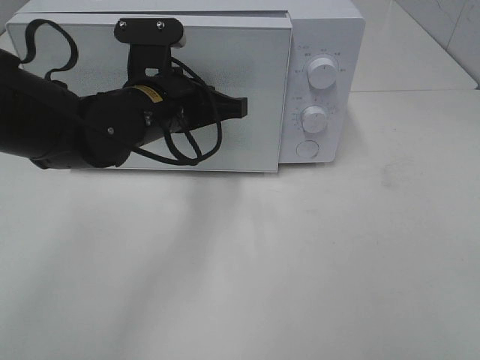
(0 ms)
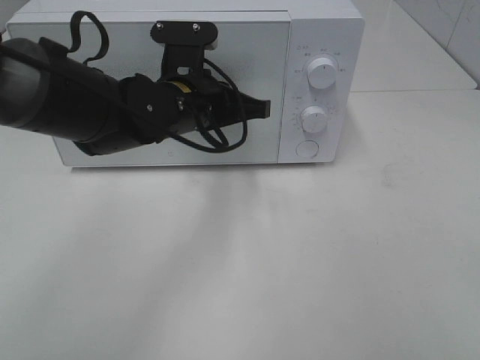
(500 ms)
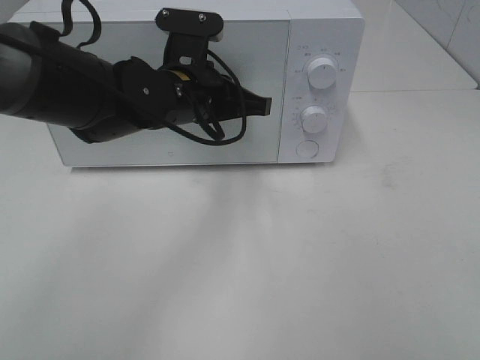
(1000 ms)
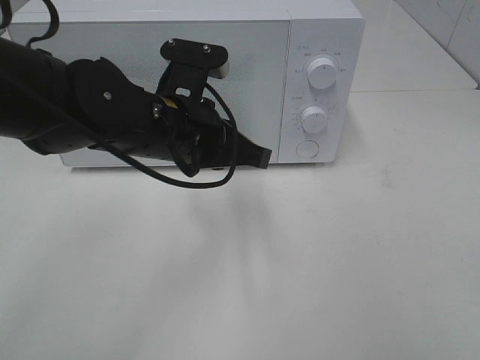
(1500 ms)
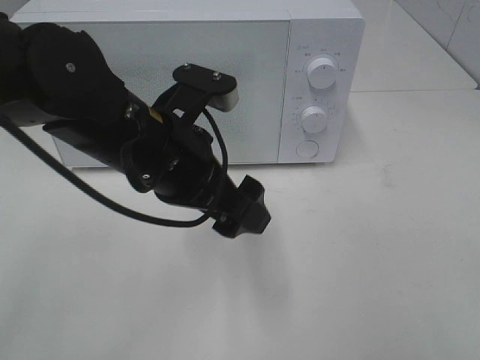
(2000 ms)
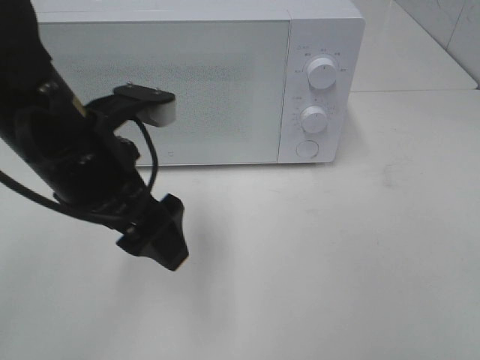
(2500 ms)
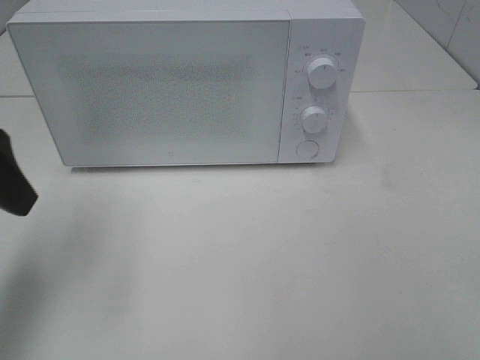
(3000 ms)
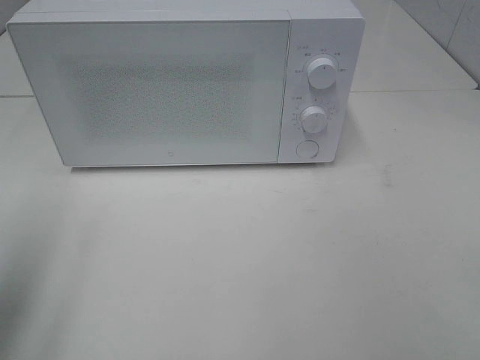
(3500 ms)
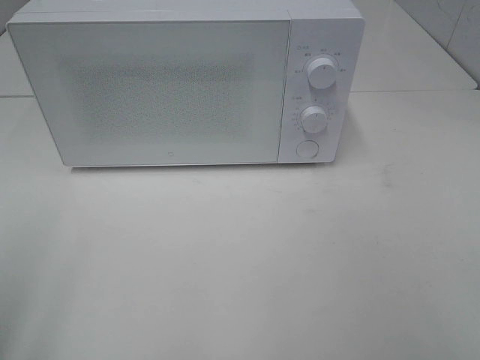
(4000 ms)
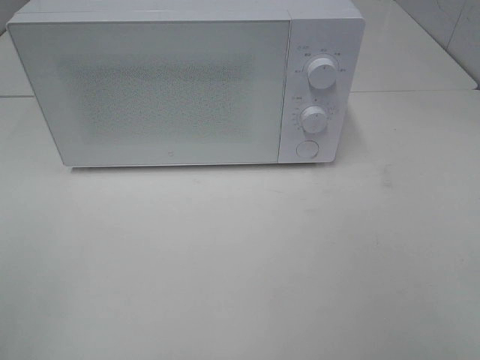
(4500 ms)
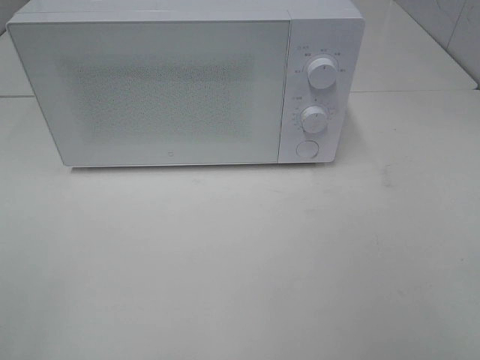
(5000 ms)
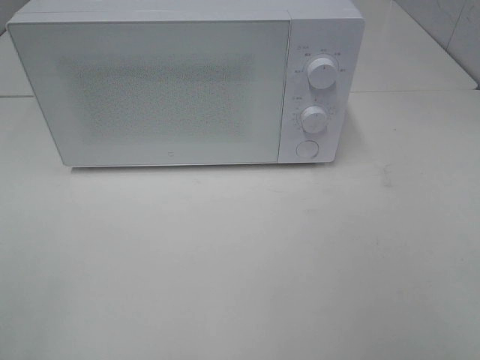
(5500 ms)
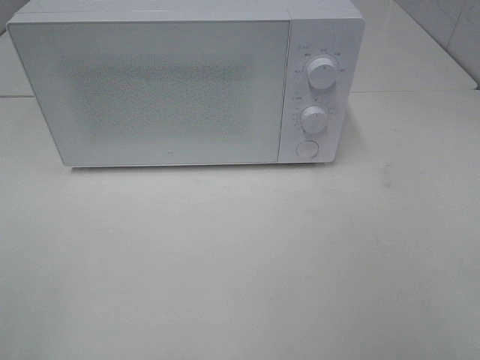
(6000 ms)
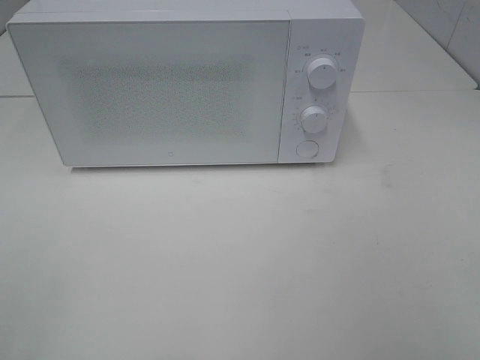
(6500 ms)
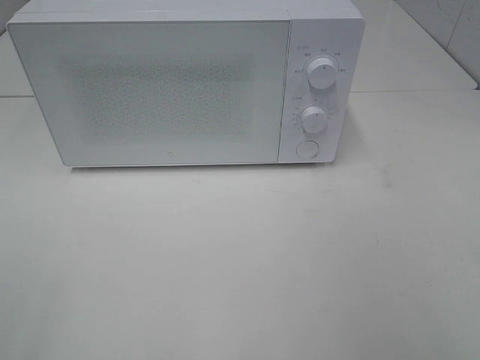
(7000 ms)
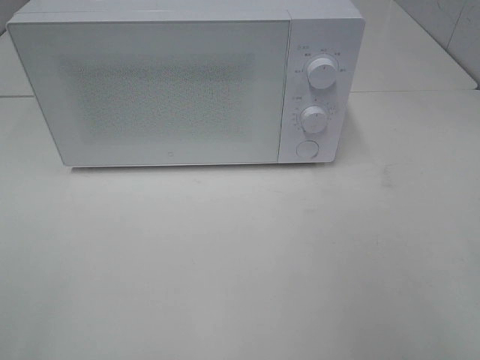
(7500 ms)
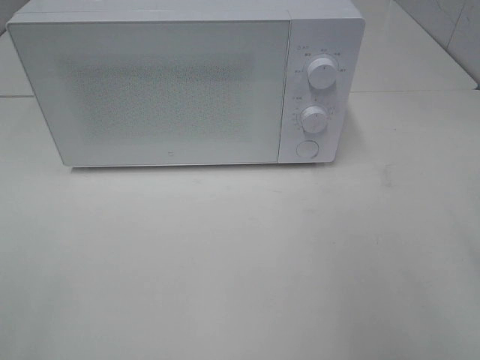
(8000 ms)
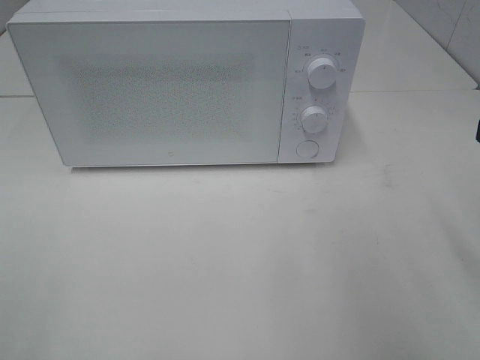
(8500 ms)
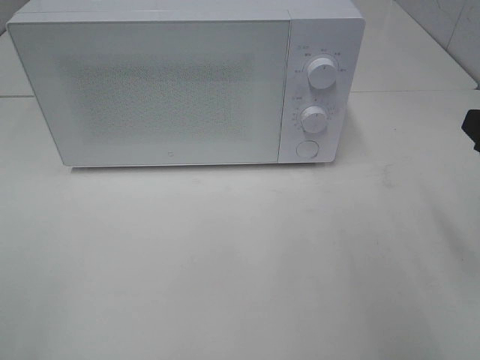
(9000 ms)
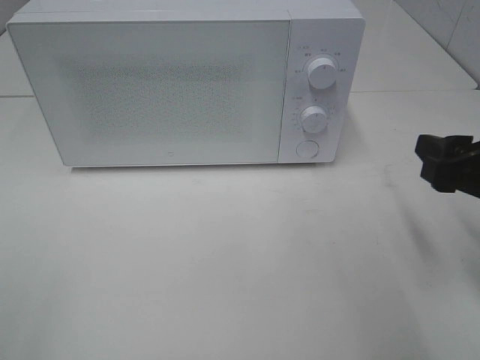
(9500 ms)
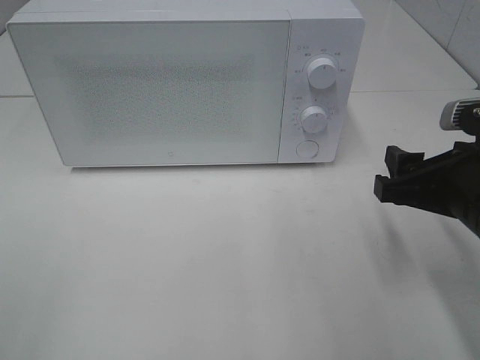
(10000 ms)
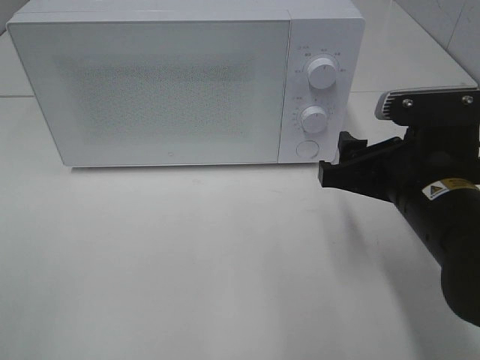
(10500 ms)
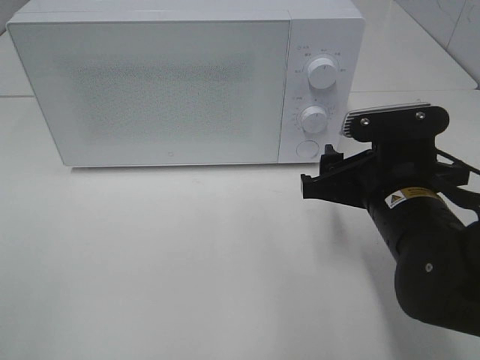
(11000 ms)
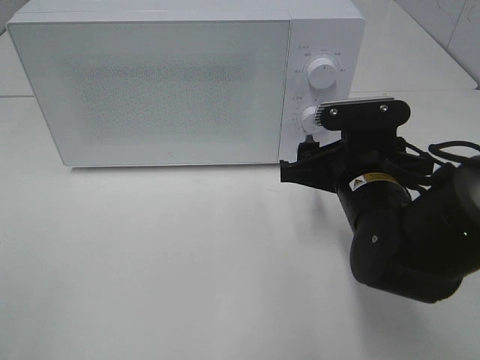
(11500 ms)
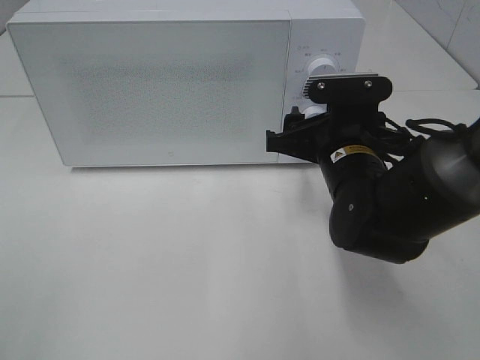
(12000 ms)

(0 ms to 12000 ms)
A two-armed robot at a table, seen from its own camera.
Task of the whole recording: Heat the burger.
0 ms - 2000 ms: The left gripper is displaced backward by some 10 cm, and opens up.
2000 ms - 4000 ms: The left gripper travels to the left and backward by roughly 30 cm.
8000 ms - 10000 ms: The right gripper goes roughly 15 cm downward, forward and to the left.
10000 ms - 12000 ms: The right gripper is displaced forward and to the left by about 15 cm.

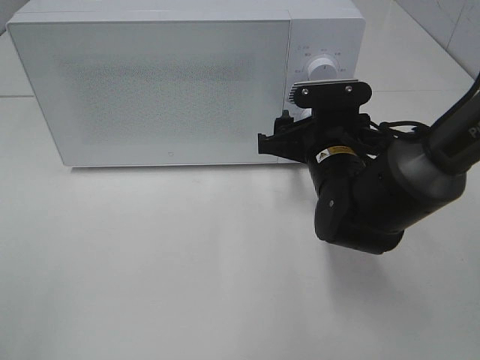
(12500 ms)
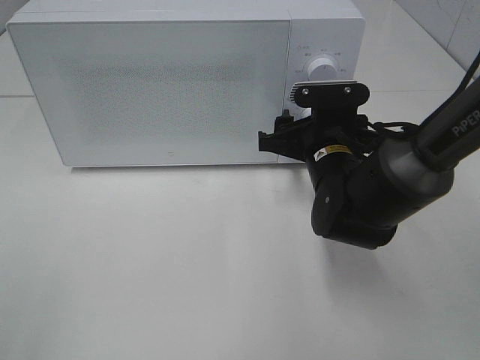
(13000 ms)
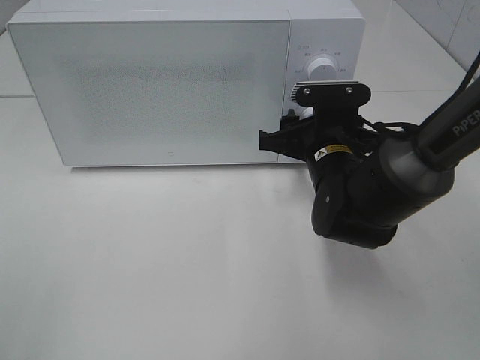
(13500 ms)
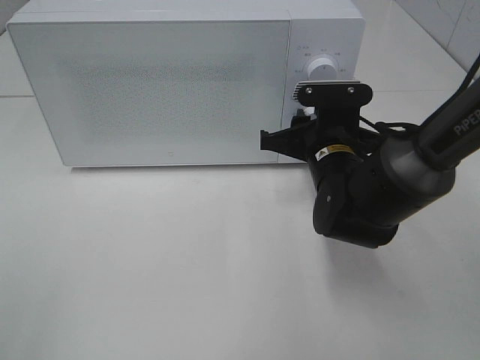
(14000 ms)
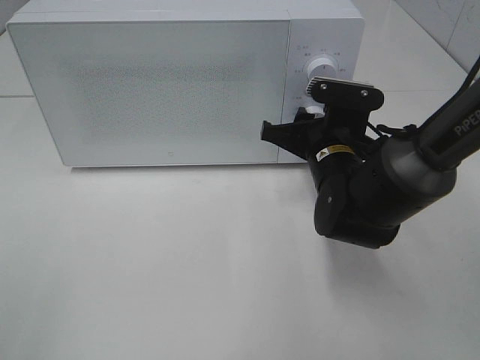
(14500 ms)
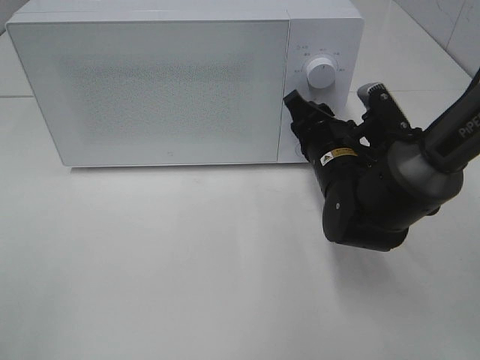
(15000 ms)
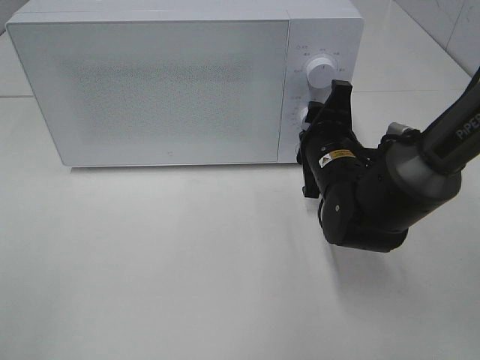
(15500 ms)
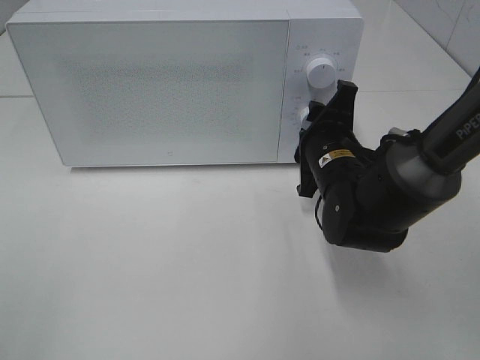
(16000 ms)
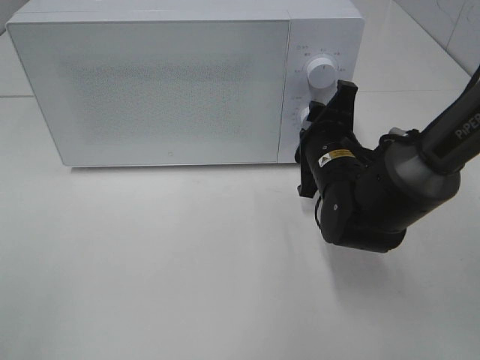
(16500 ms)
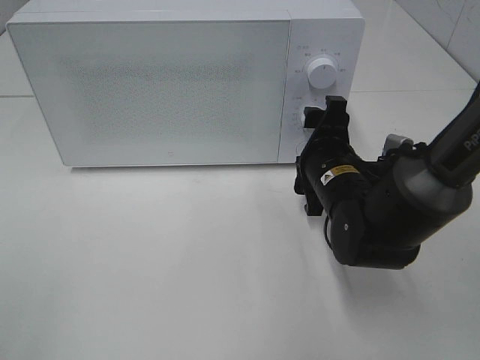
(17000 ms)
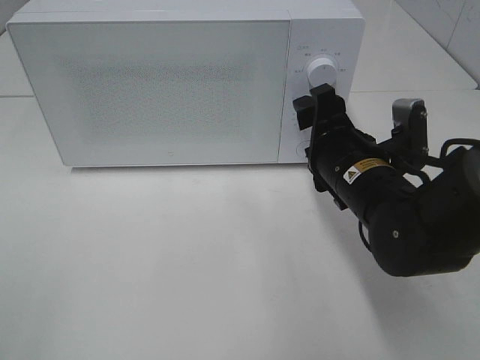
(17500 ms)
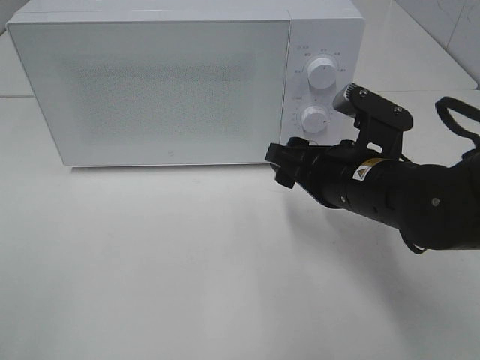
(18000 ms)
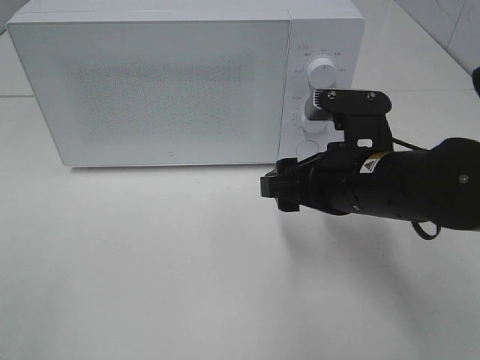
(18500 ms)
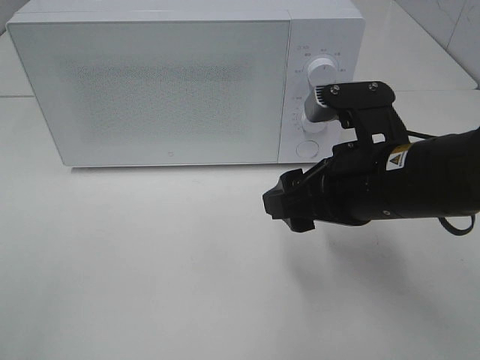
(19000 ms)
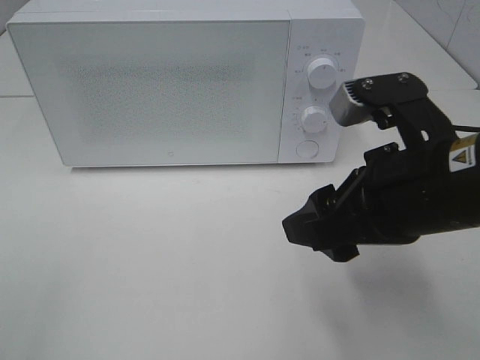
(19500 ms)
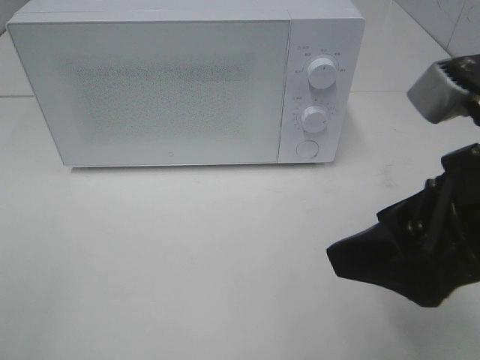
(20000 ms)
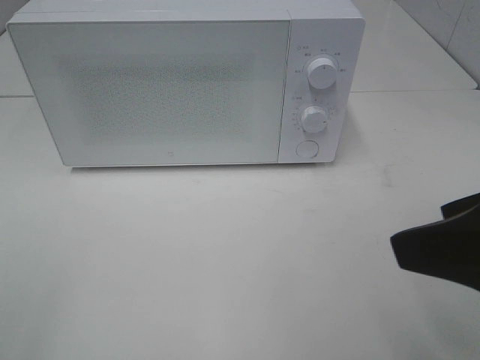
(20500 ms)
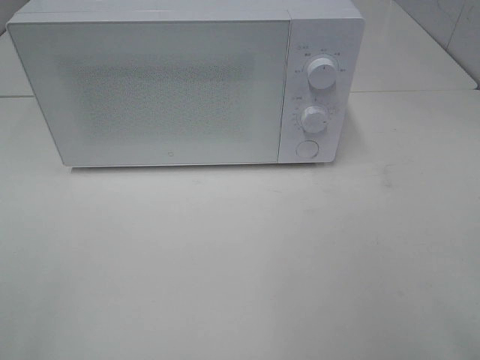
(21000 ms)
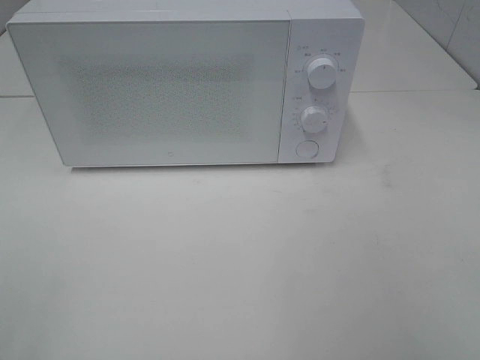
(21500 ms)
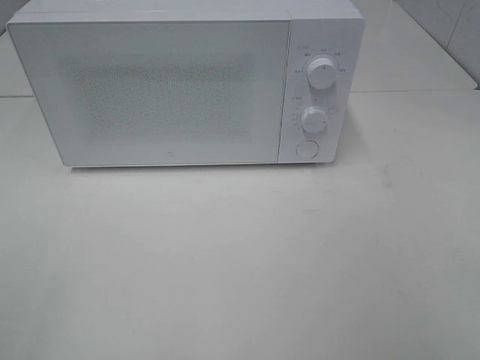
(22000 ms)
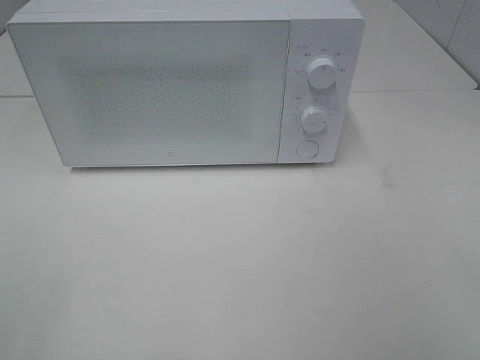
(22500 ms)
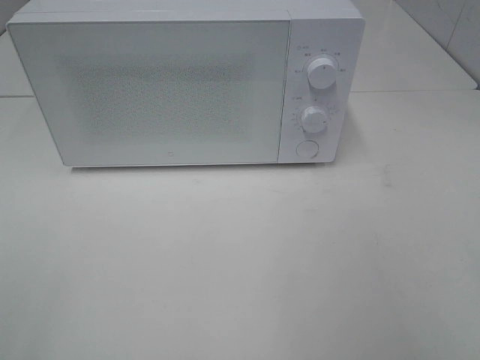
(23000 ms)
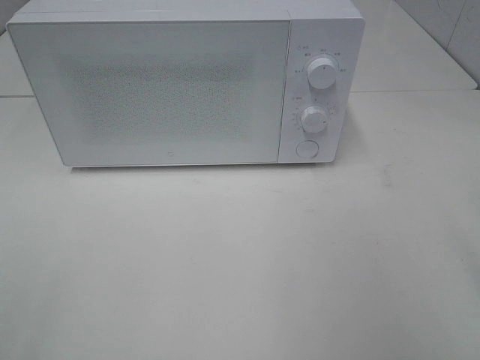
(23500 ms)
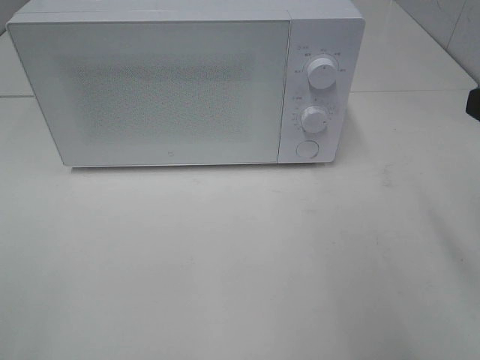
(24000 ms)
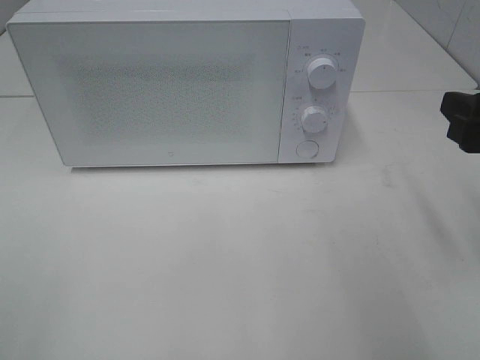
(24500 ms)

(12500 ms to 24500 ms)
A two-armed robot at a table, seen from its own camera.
Task of the whole recording: Heat the burger.
Step, 12500 ms - 16500 ms: Right hand: twist timer button.
12500 ms - 14500 ms: The right gripper closes its fingers.
16500 ms - 18500 ms: The right gripper shifts approximately 10 cm backward and upward.
18500 ms - 20500 ms: The right gripper goes about 20 cm backward, upward and to the right.
20500 ms - 22500 ms: The right gripper is displaced backward and to the right by about 10 cm.
22500 ms - 24500 ms: The right gripper moves forward, roughly 20 cm.

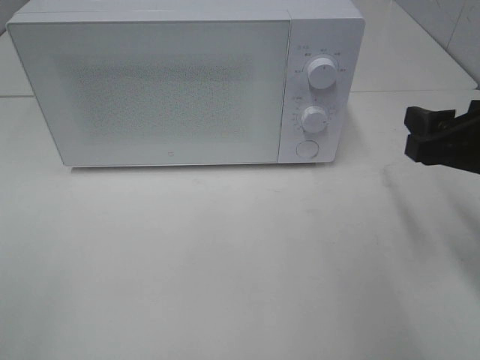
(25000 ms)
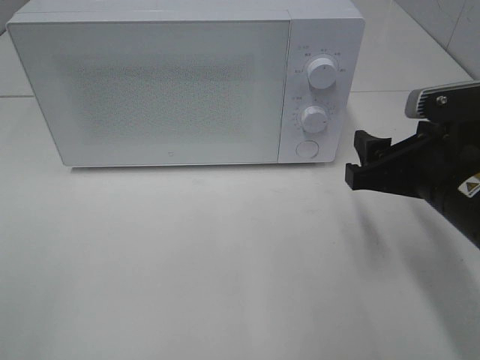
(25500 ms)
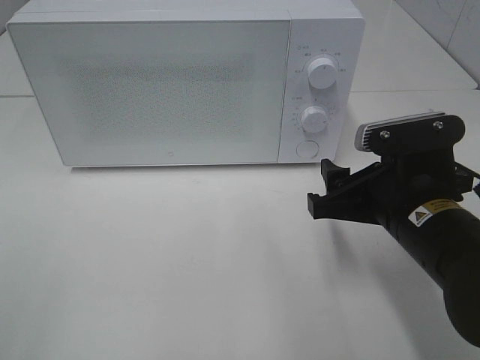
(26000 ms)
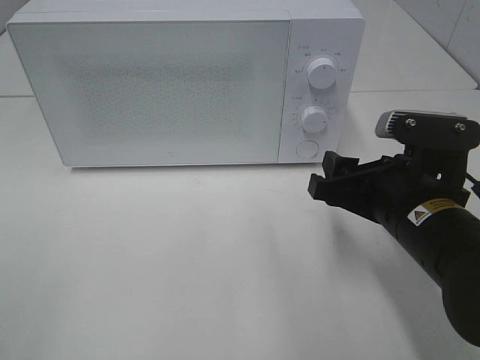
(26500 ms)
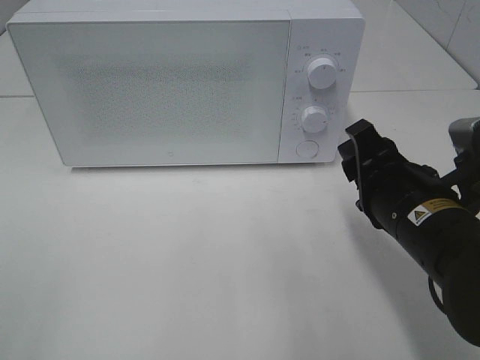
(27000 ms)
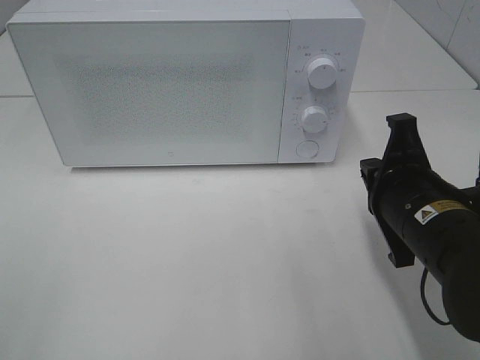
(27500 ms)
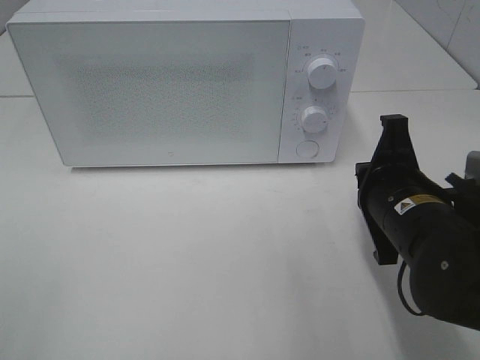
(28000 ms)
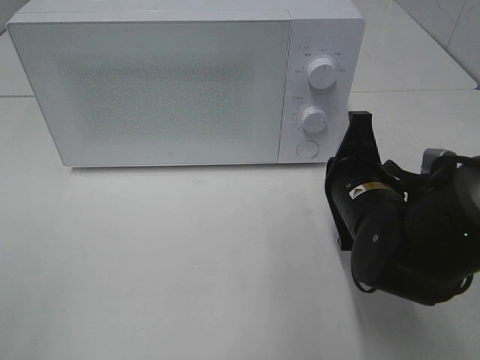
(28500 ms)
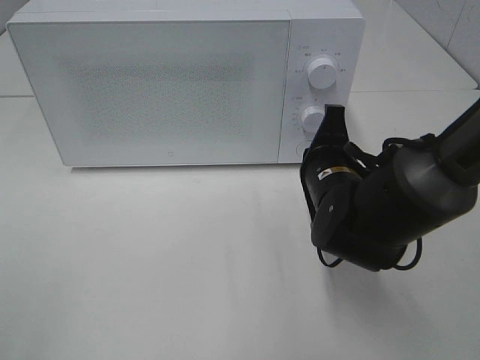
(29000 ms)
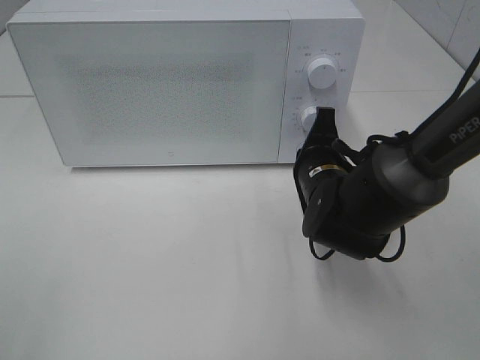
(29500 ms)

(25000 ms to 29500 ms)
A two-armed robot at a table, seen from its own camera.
Task of the whole recording: Heat the burger.
25000 ms - 27000 ms: The right gripper heads to the left and downward, covering about 10 cm.
27000 ms - 29500 ms: The right gripper moves forward, downward and to the left, some 15 cm, and closes its fingers.
